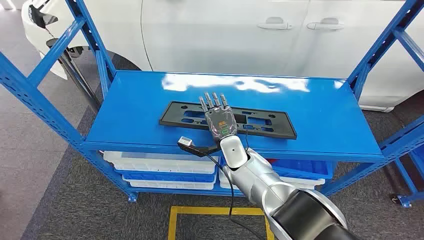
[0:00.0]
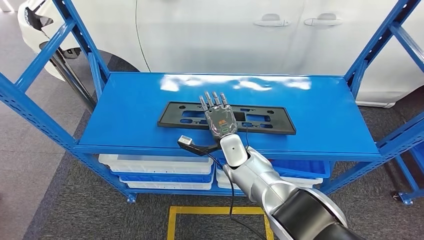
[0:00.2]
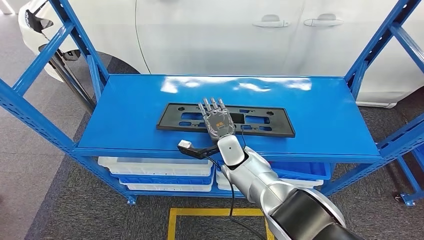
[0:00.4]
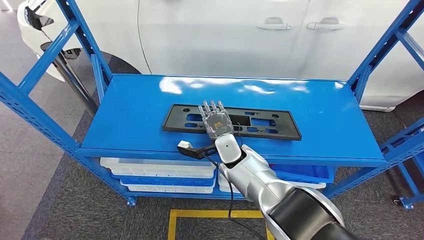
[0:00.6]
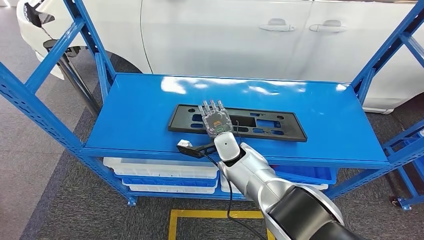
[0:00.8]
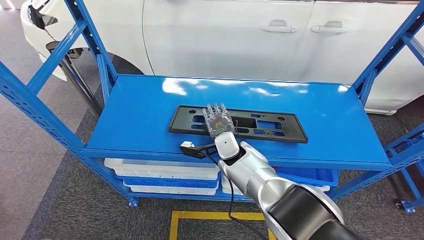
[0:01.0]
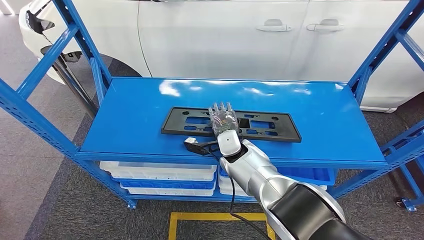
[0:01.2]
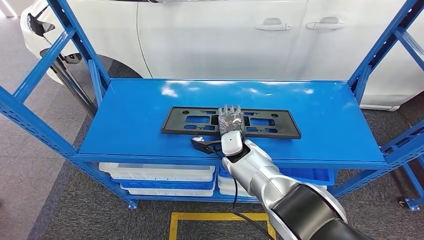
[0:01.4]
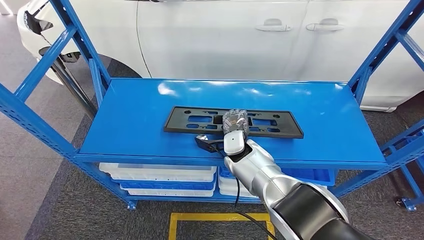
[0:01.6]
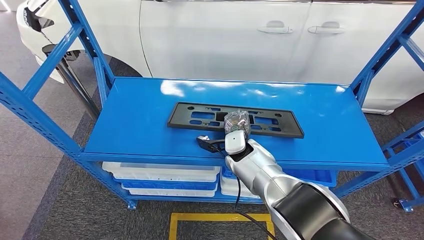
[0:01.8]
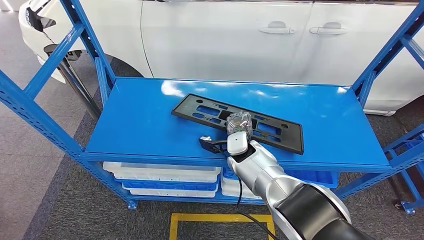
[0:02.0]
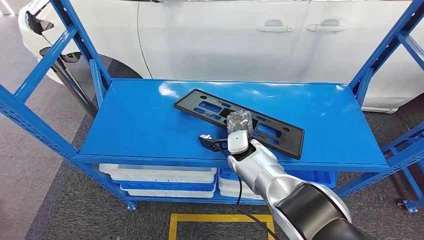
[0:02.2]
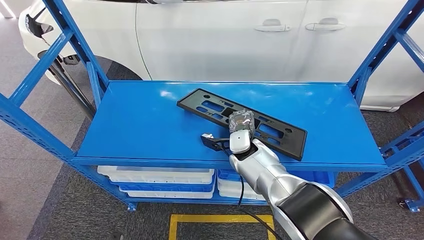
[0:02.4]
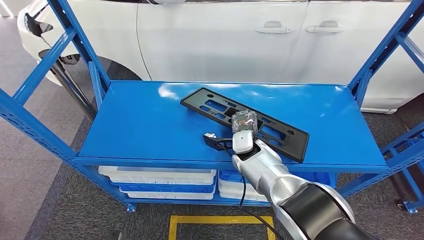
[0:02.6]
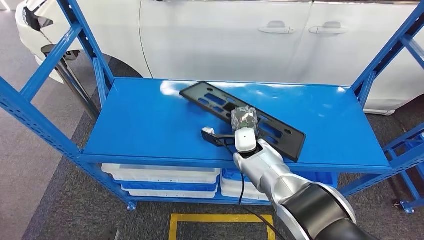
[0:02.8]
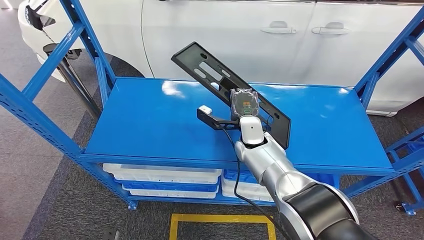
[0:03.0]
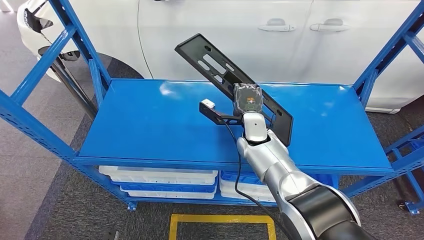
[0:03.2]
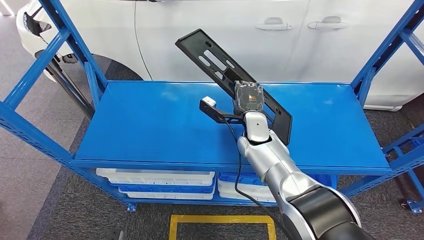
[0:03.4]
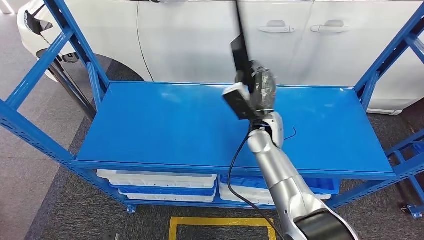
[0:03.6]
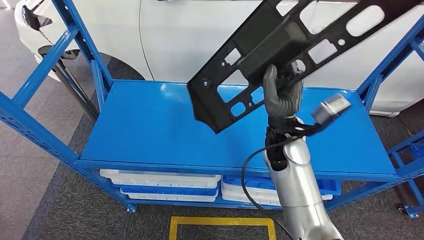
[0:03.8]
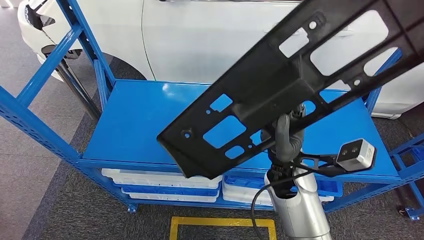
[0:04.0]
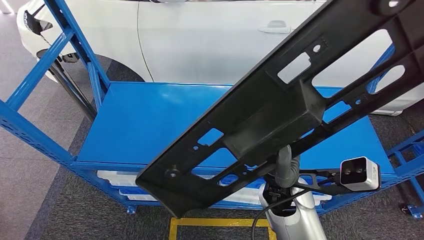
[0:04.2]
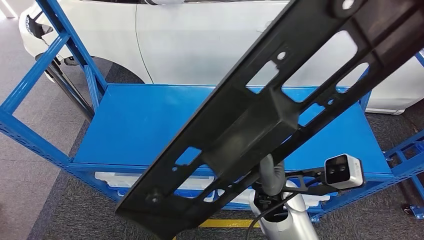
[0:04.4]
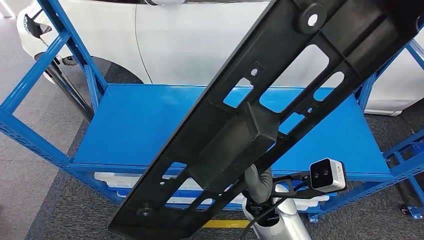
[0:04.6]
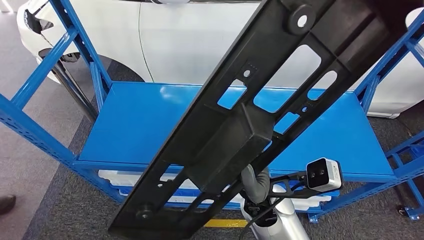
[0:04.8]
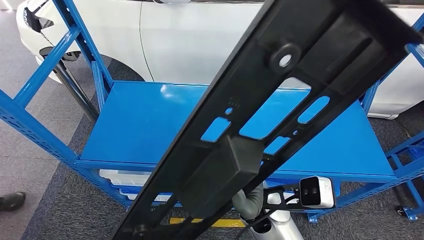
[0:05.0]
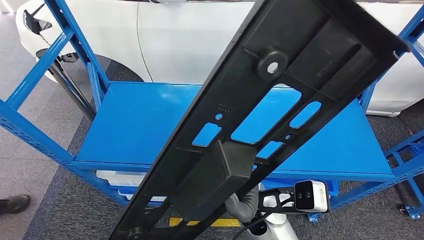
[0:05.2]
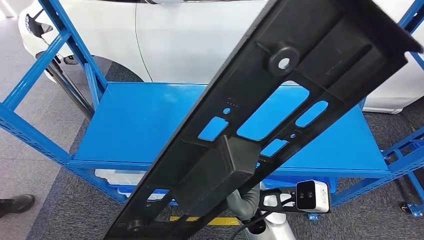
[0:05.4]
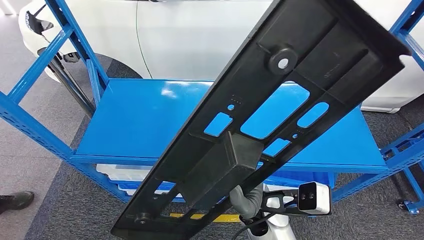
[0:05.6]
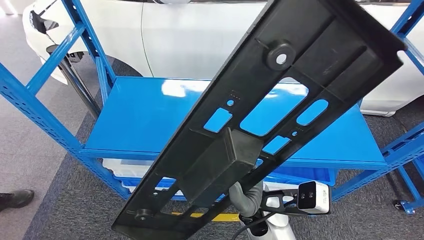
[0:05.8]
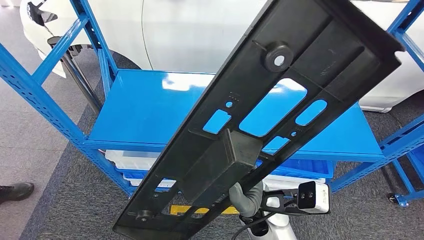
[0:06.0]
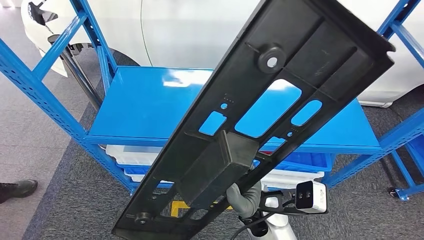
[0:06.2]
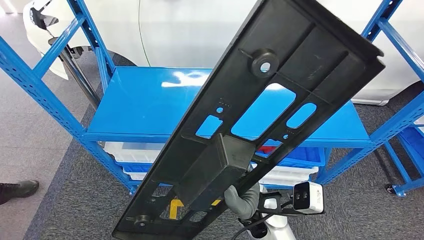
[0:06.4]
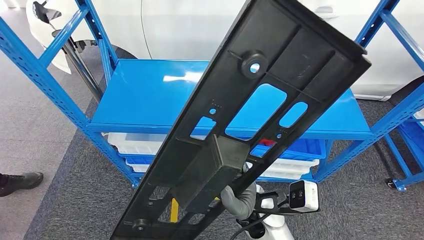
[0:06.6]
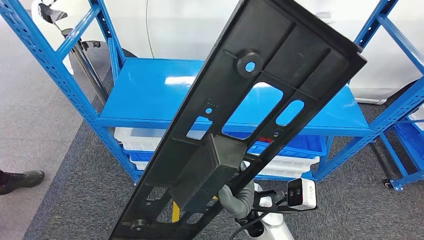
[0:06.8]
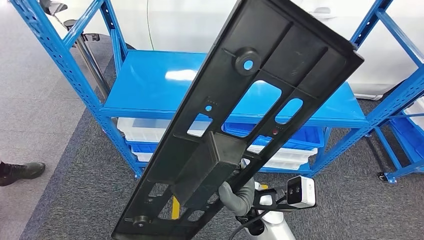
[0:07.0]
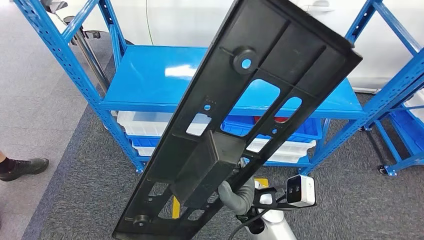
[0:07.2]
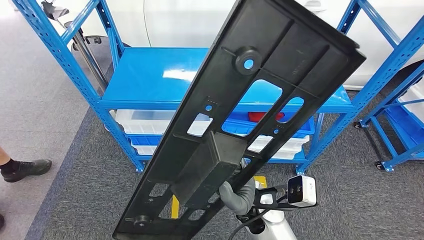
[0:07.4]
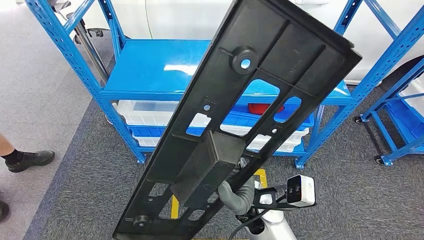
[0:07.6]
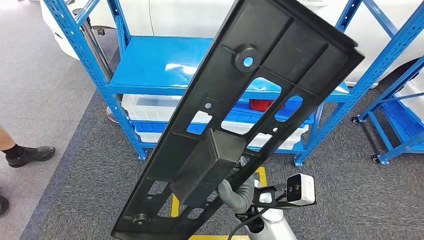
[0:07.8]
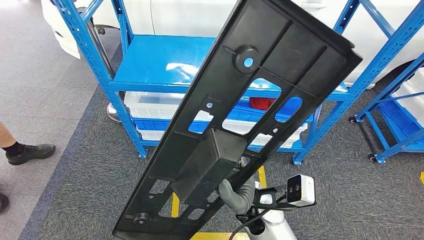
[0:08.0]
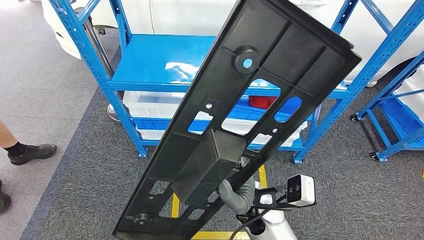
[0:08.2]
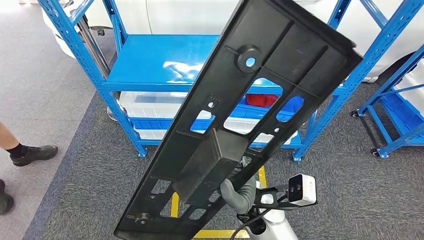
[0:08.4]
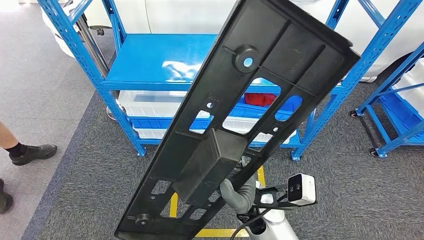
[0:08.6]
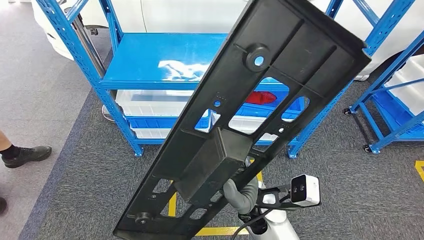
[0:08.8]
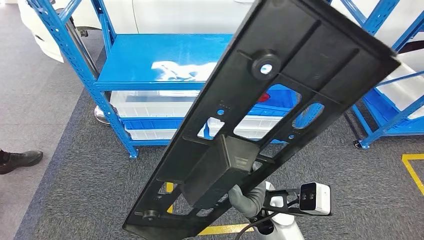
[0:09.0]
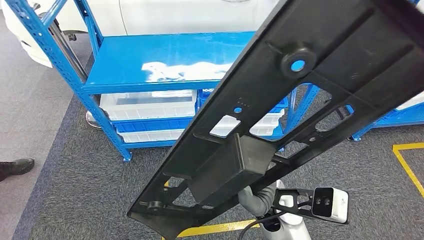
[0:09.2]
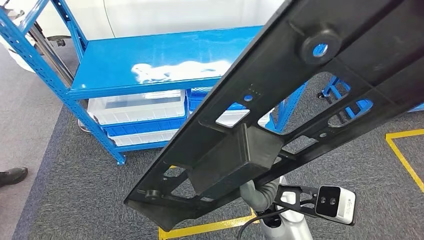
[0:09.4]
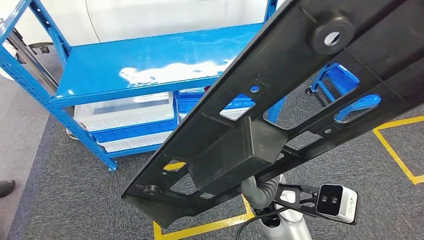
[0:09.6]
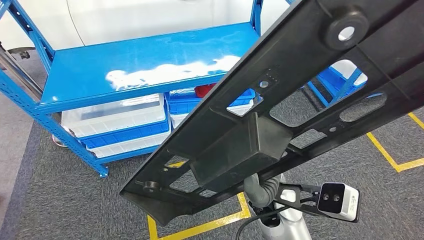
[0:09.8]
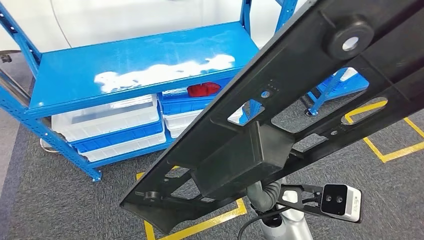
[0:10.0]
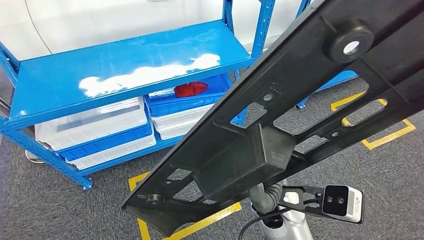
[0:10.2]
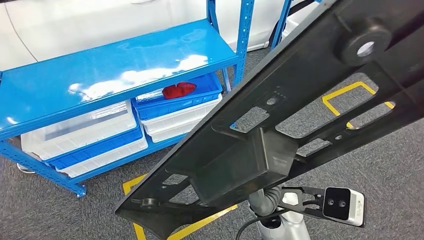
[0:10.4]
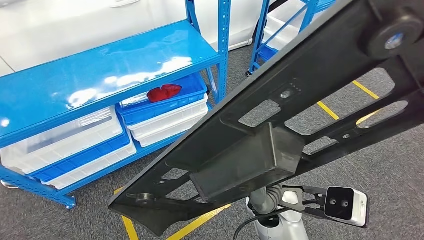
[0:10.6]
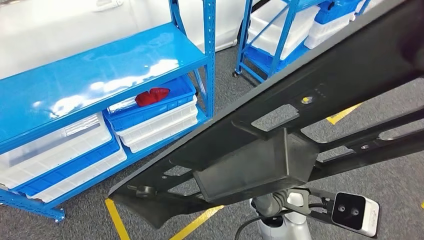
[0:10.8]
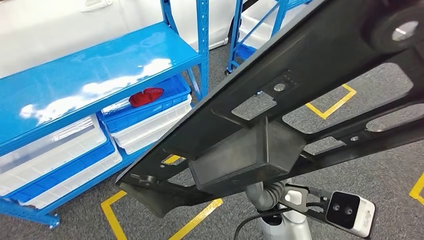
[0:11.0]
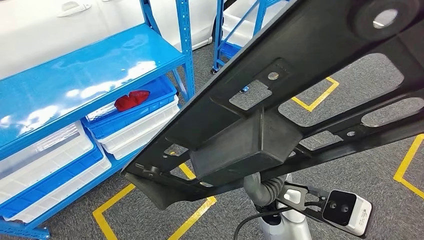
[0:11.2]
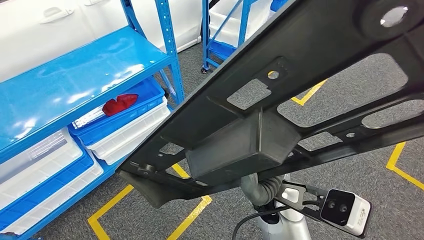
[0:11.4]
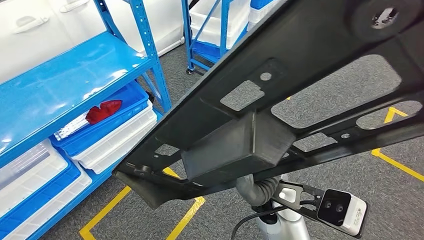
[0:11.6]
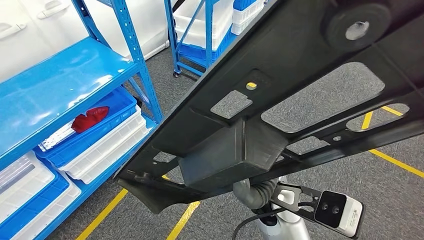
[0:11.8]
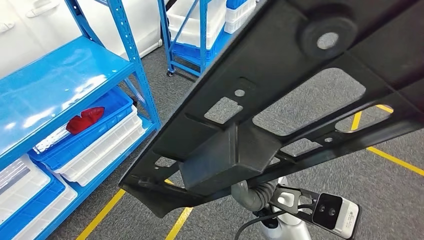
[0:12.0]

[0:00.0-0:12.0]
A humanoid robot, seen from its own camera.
Step, 0:00.0 to 0:05.0: Pick up the large material from the shelf.

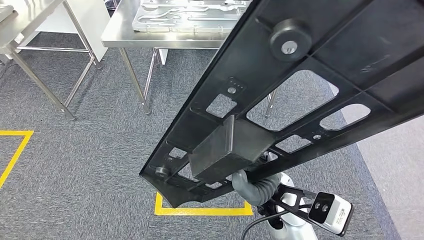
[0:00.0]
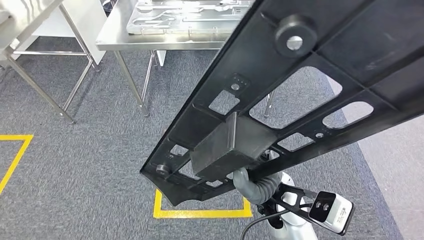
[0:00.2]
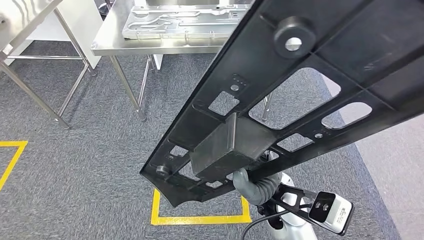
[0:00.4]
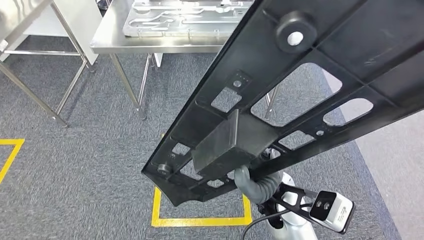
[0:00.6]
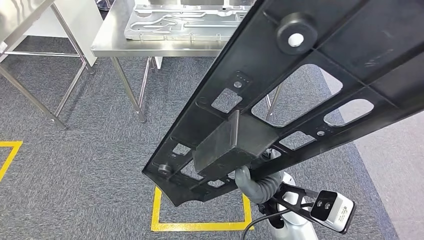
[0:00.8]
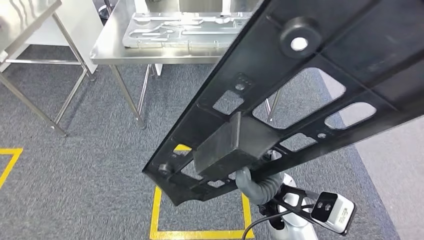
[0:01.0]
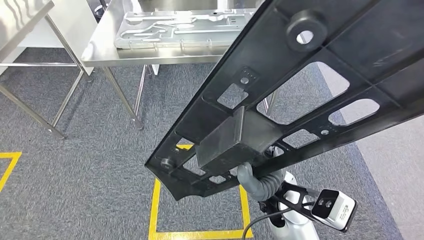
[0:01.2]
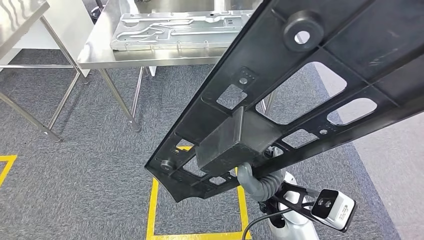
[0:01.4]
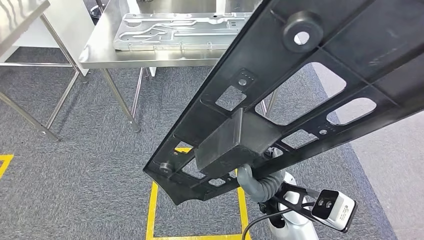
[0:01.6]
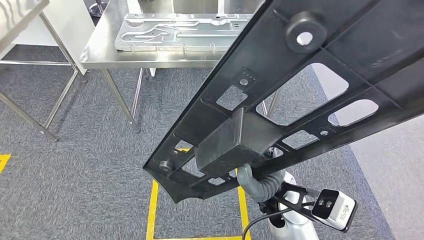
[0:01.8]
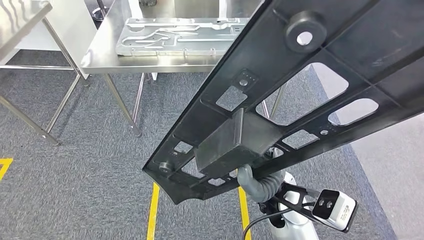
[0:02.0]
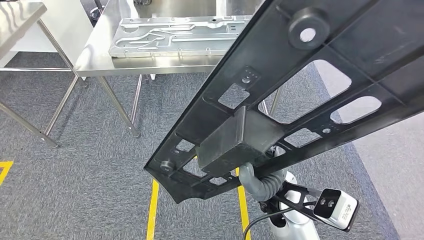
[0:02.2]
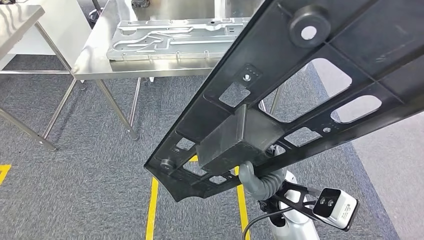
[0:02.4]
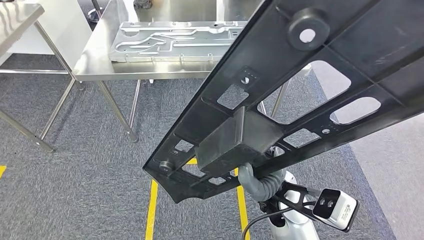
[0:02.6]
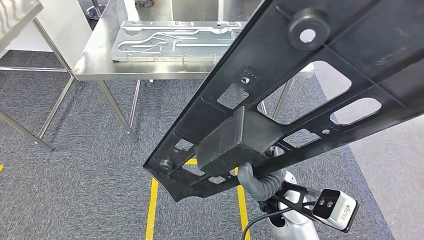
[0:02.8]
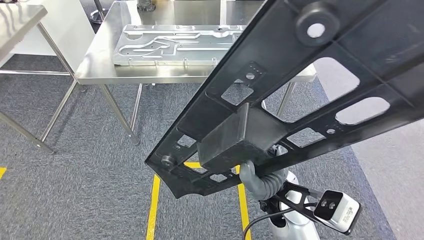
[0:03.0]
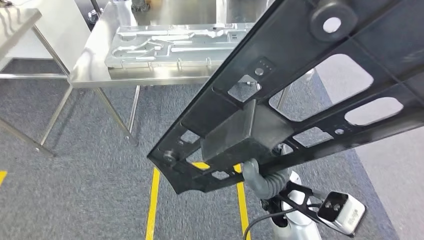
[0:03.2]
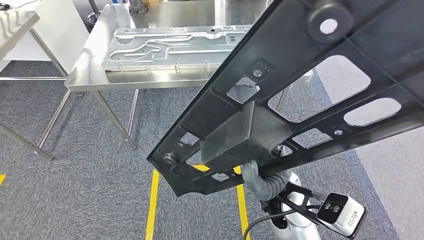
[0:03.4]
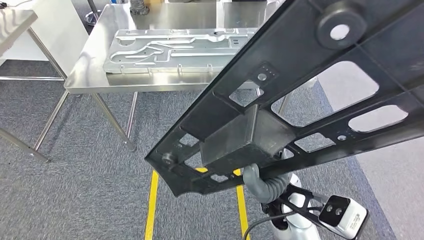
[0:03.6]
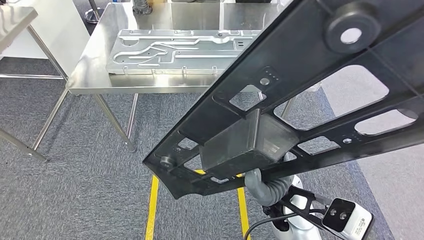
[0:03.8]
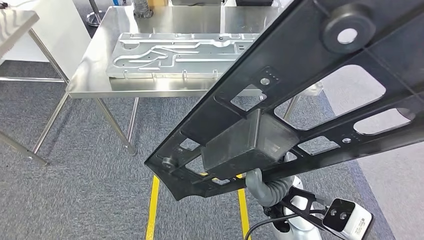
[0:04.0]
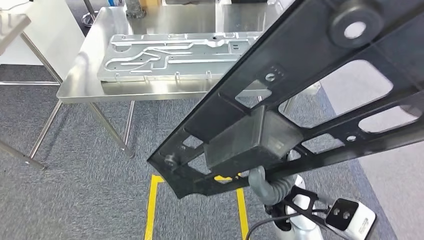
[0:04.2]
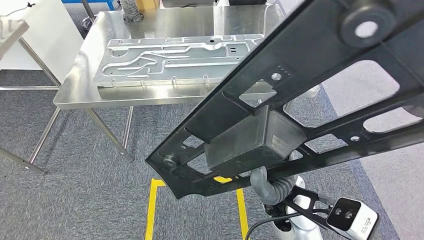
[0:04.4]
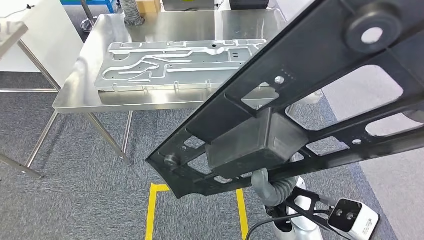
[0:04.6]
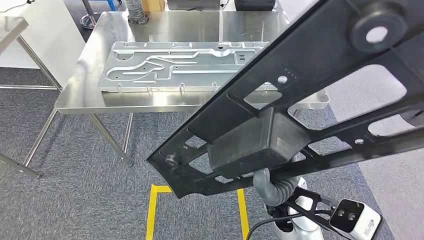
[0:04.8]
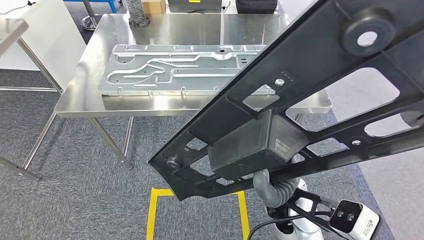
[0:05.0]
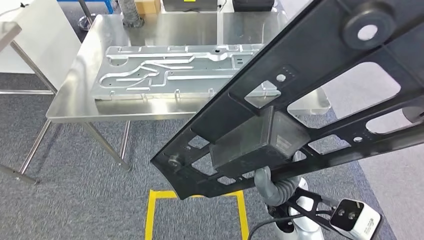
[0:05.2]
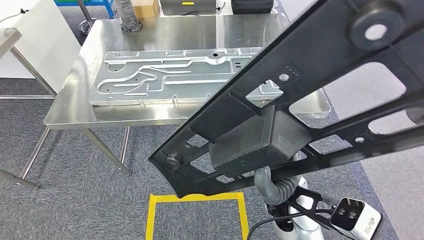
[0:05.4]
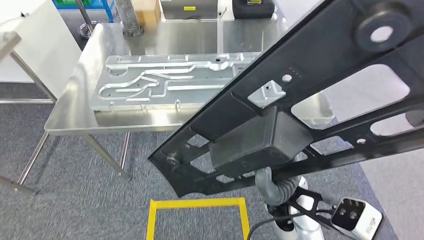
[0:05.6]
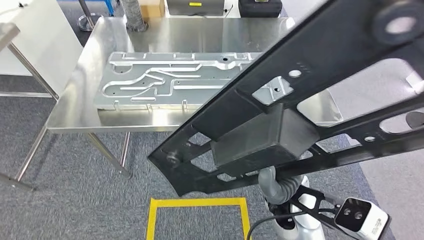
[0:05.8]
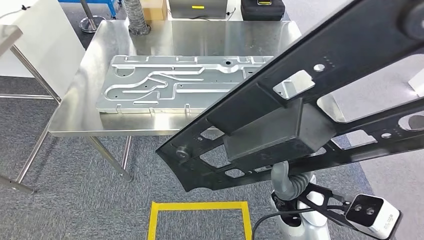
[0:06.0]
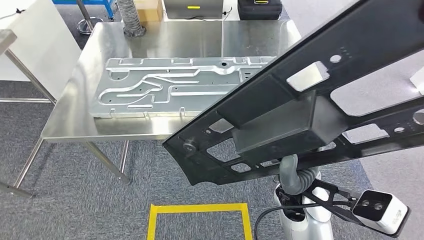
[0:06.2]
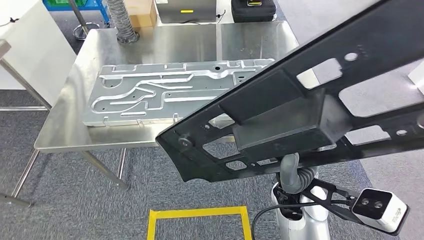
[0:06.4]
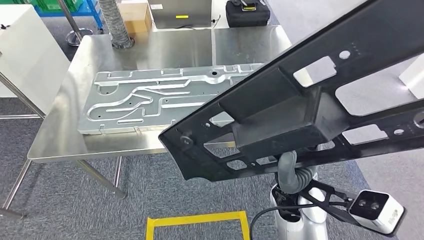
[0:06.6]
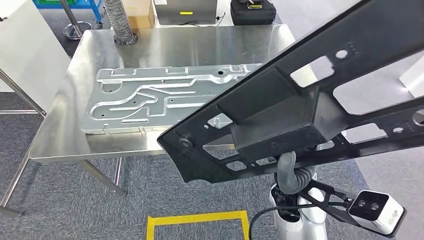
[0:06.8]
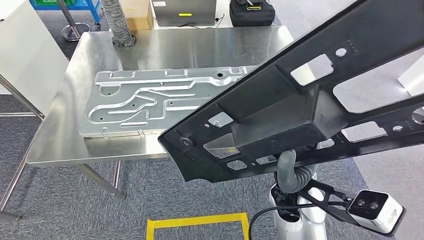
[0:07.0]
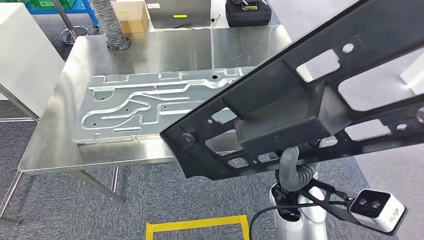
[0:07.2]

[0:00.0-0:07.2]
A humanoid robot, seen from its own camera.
Step, 0:00.0 to 0:04.8: Move the large material to the front of the workbench.
0:01.4 to 0:02.8: The two hands keep their place.
